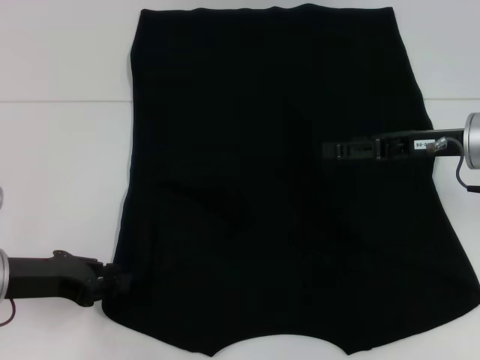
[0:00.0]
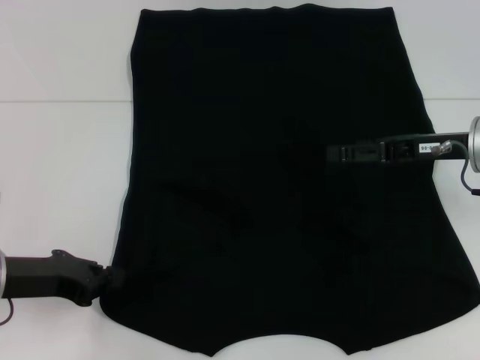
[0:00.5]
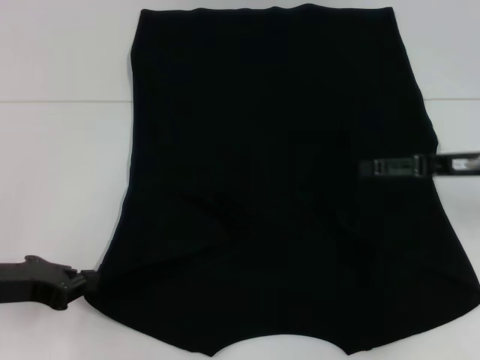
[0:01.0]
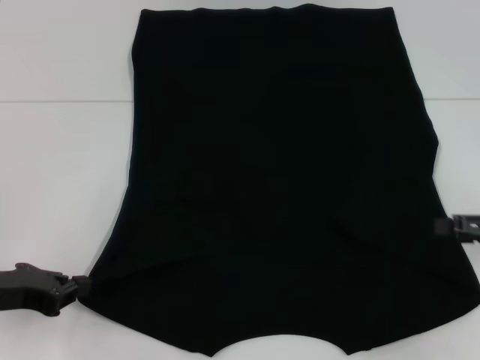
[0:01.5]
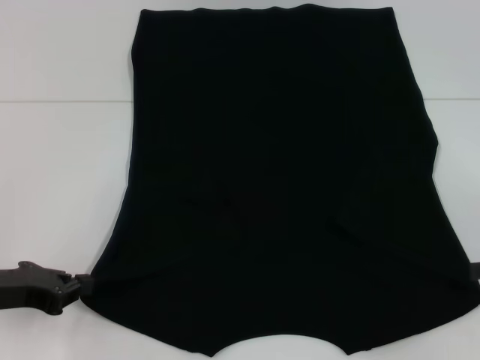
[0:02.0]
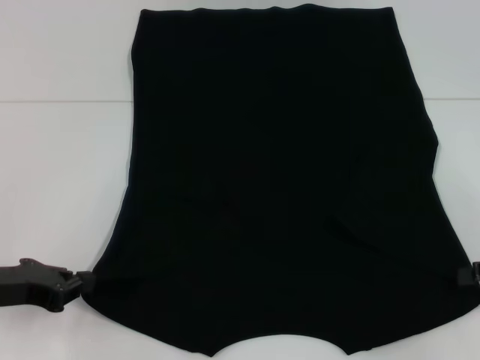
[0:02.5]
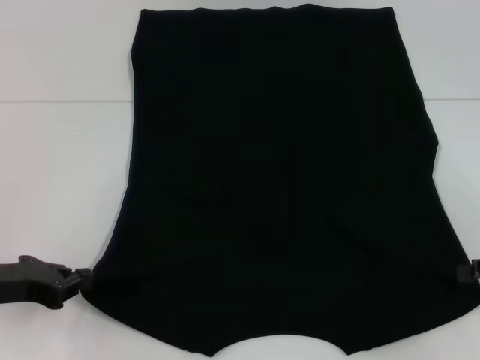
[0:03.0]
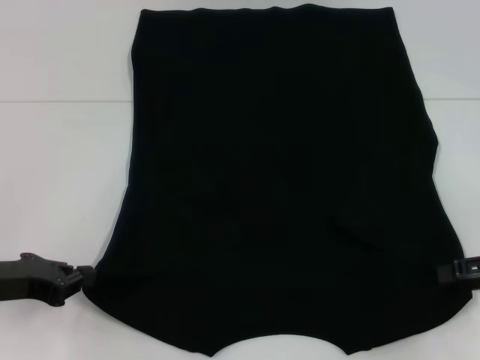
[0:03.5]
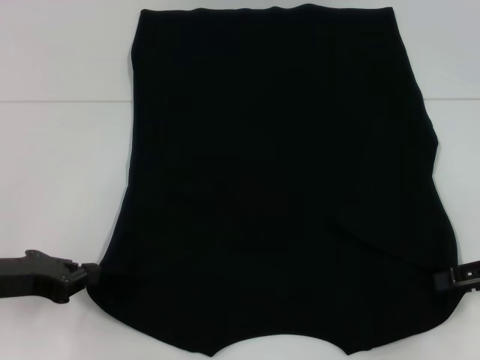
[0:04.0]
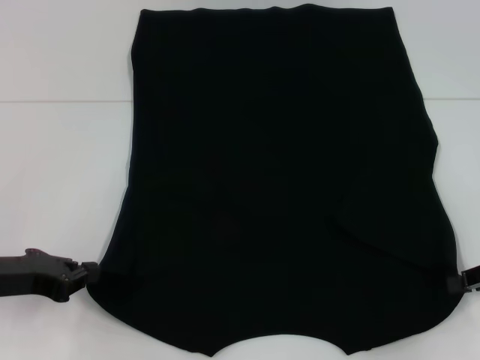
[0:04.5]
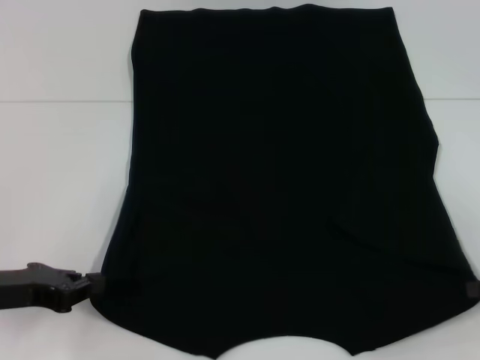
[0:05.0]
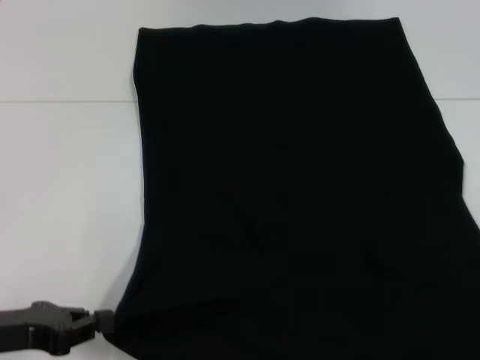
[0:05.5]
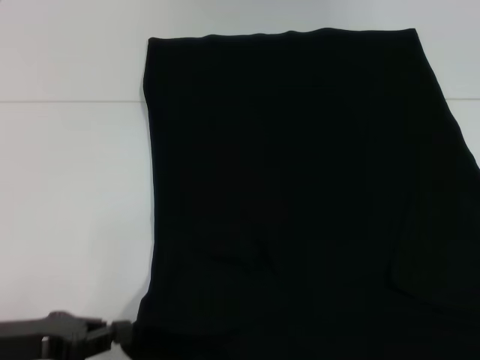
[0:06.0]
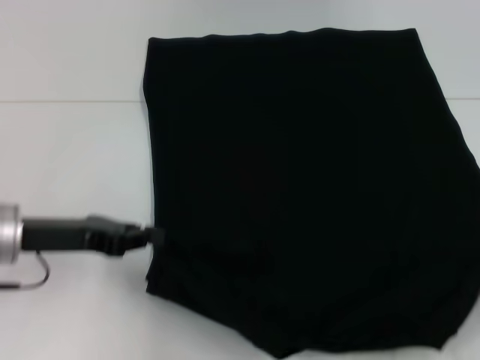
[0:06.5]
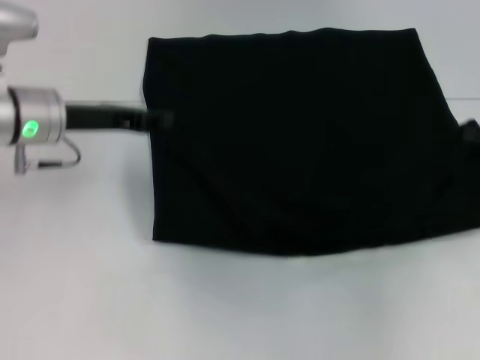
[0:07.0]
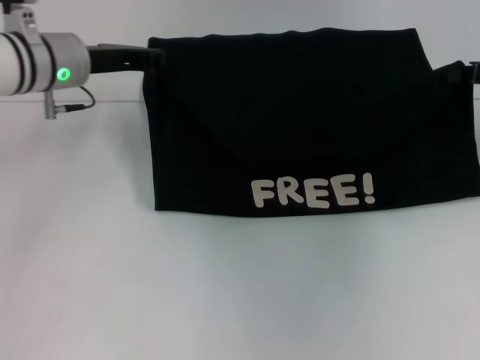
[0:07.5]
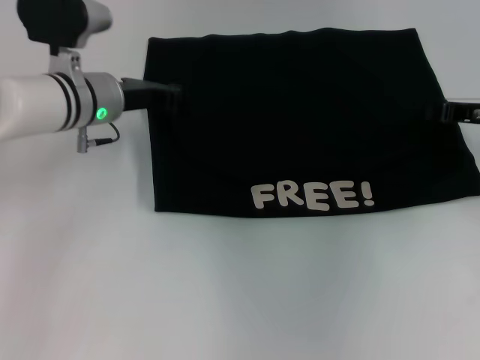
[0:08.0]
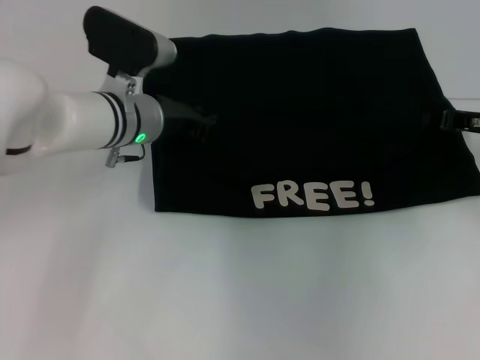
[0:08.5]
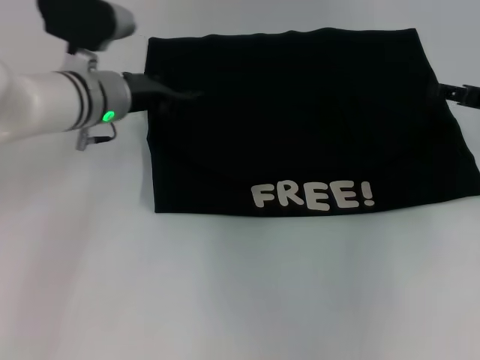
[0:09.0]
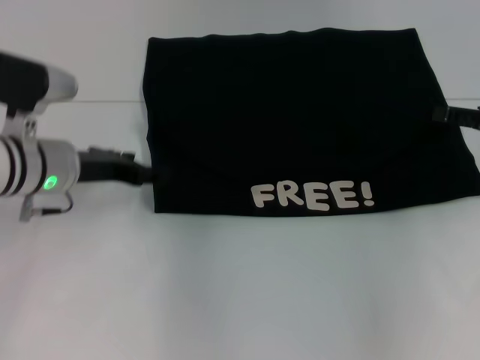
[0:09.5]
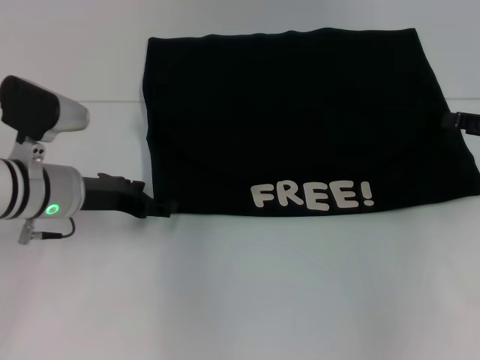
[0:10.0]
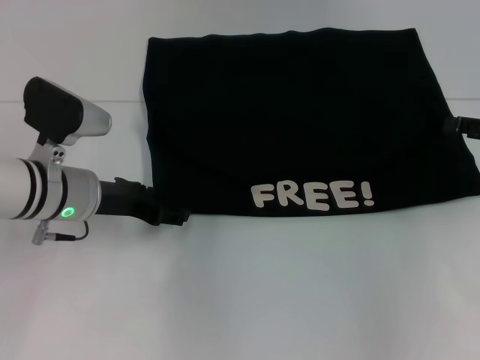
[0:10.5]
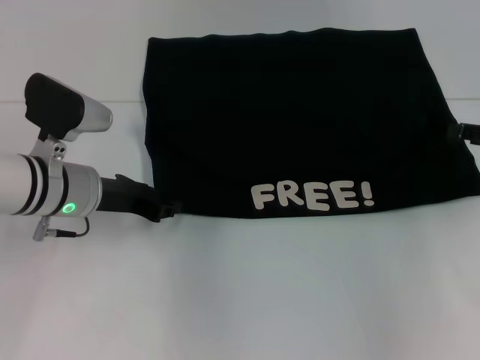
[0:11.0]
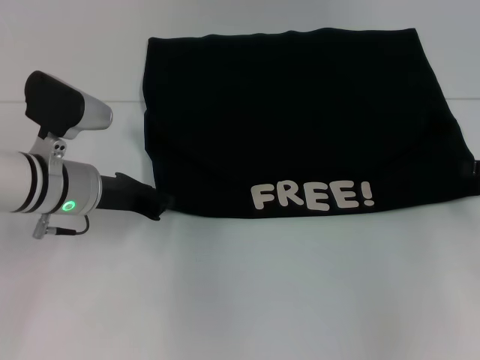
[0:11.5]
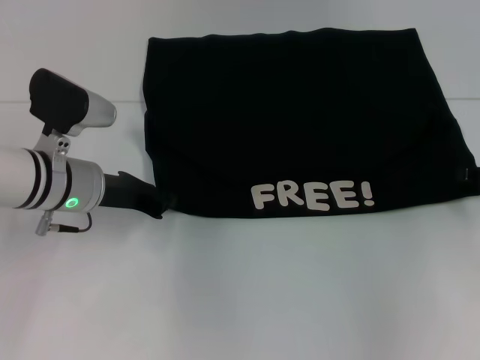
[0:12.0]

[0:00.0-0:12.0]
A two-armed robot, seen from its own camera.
Step, 1.5 to 4.5 s: Grab the bottom right corner with your right hand.
Step, 5.0 to 8.5 s: Fold the clothes with your left hand.
Step, 5.0 to 8.5 s: Fold the clothes with your right hand.
0.0 to 2.0 s: The left gripper closes its fingers. The right gripper heads to the right and backward, covering about 20 cm.
2.0 to 4.0 s: The grippers move only a little.
4.0 to 6.0 s: The right gripper goes roughly 15 cm backward and to the right, and closes its fingers. The left gripper travels backward by roughly 5 cm.
6.0 to 8.0 s: The right gripper moves forward and to the left, about 30 cm. Meanwhile the left gripper shifts about 25 cm forward and to the right.
8.0 to 10.0 s: The right gripper shifts some 5 cm backward, and opens. The left gripper shifts roughly 10 cm backward, and opens its fingers.
10.0 to 12.0 s: The left gripper closes.

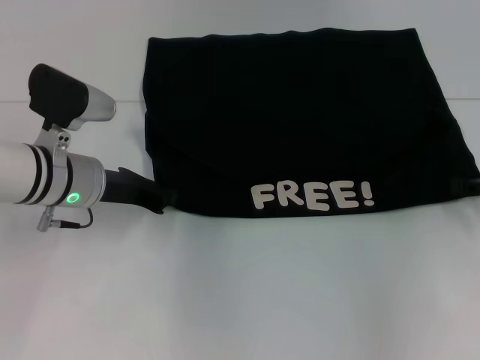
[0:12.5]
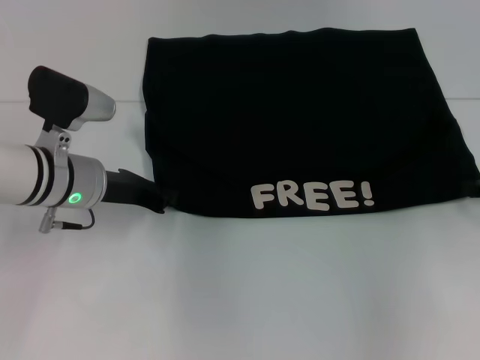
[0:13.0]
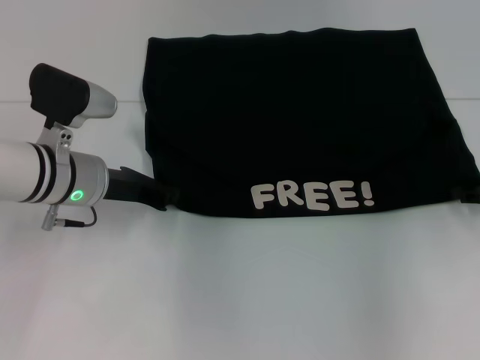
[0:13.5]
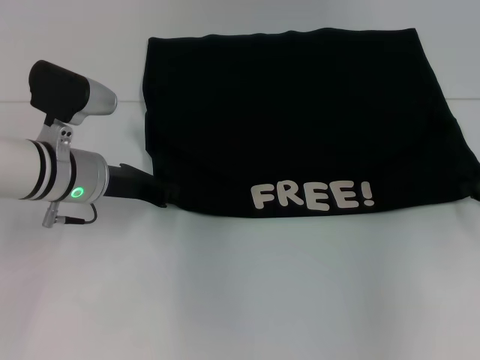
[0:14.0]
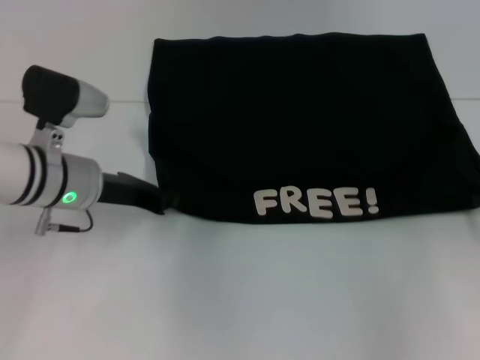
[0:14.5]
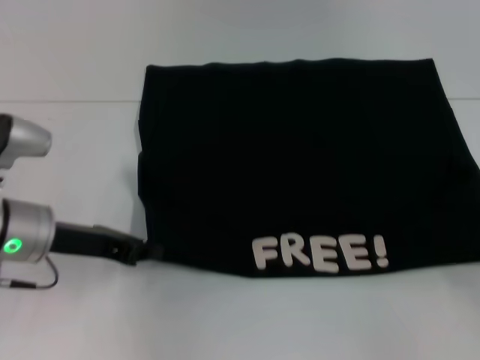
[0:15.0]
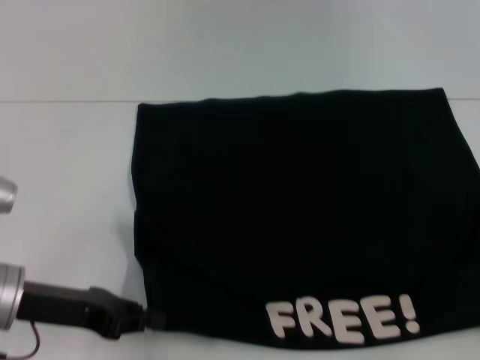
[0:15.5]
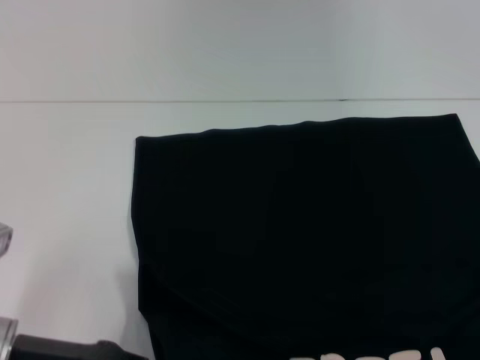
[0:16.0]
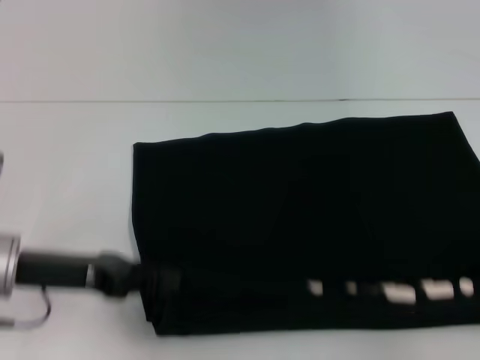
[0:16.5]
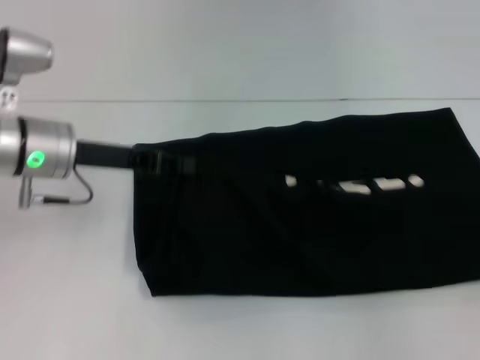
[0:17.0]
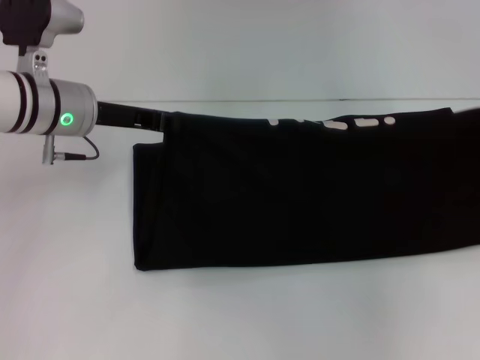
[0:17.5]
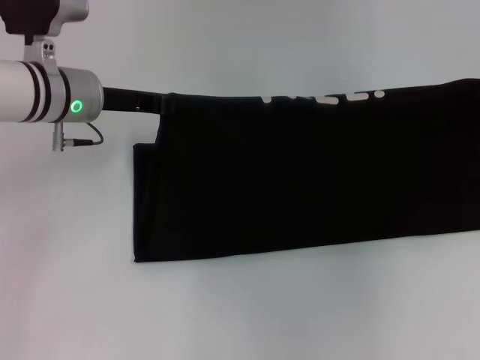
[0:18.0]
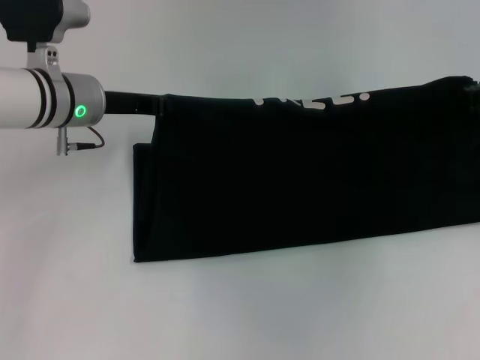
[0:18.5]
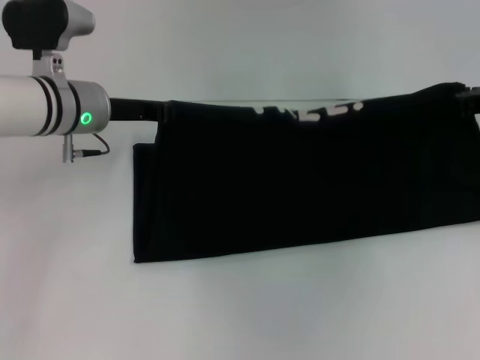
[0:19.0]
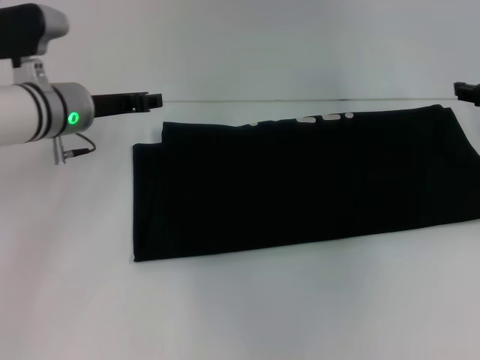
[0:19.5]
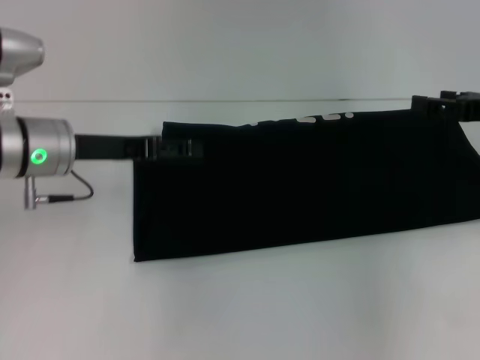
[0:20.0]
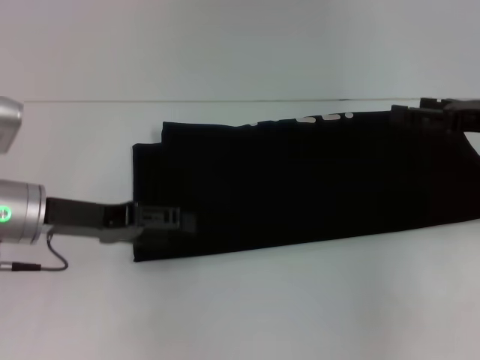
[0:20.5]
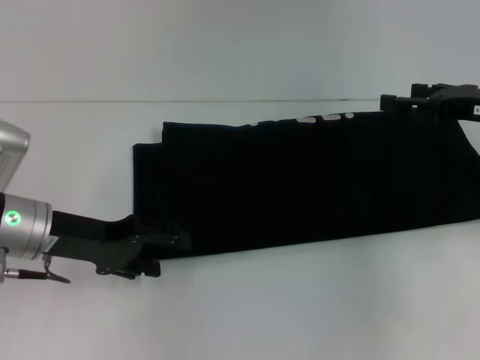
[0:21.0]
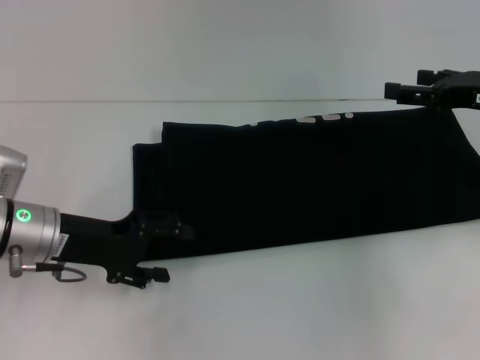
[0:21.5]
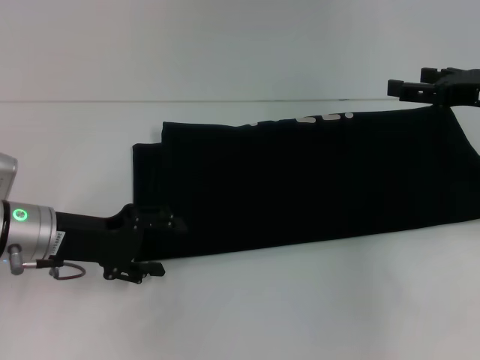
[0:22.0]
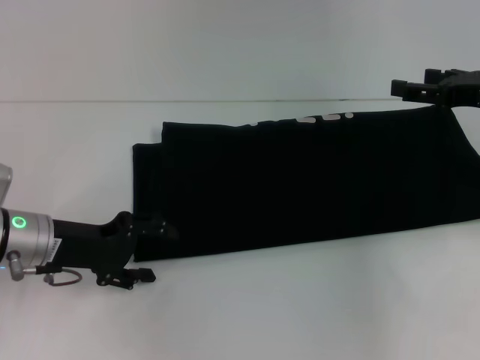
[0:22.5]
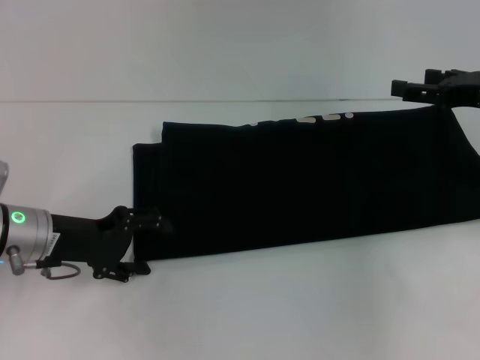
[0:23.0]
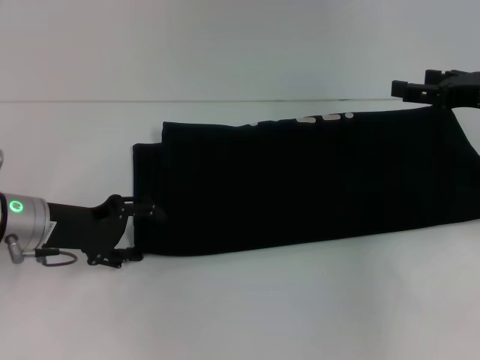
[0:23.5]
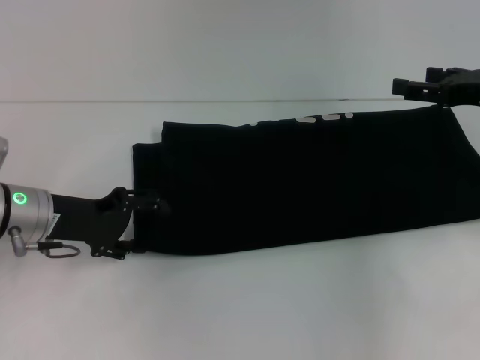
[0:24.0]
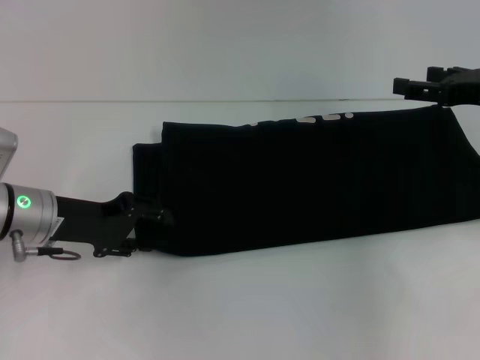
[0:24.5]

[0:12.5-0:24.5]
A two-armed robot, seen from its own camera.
Step, 12.5 to 16.0 s: Pull the clothes with your left hand.
Step, 12.5 to 16.0 s: Pull the clothes with your right hand.
Step, 16.5 to 19.5 s: Fold the clothes with your right hand.
12.5 to 14.5 s: The right gripper closes.
14.5 to 16.5 s: The left gripper goes roughly 10 cm backward and to the left. The right gripper travels backward and to the right by some 20 cm.
16.5 to 18.5 s: The left gripper travels forward by some 15 cm, while the right gripper travels forward and to the left by approximately 30 cm.
18.5 to 20.5 s: The left gripper heads backward, covering some 10 cm, and opens up. Meanwhile the right gripper travels backward by roughly 5 cm, and opens up.
22.5 to 24.5 s: The grippers stay close to where they were, moving slightly.

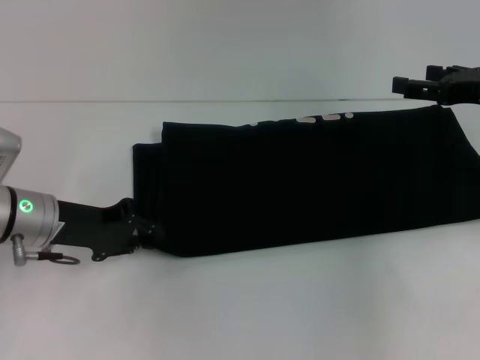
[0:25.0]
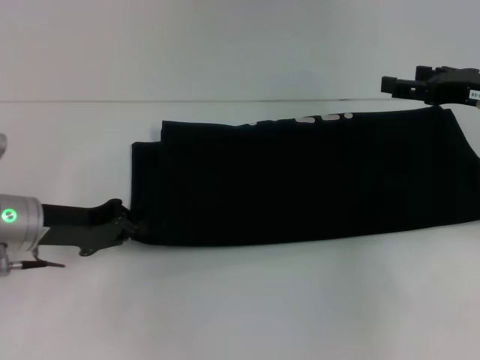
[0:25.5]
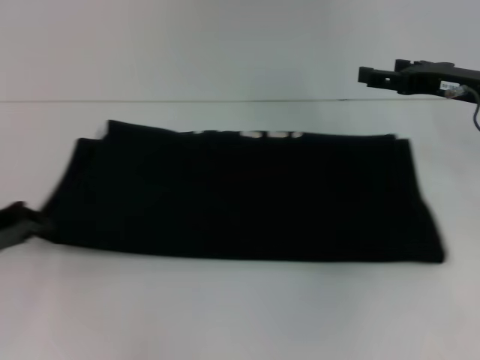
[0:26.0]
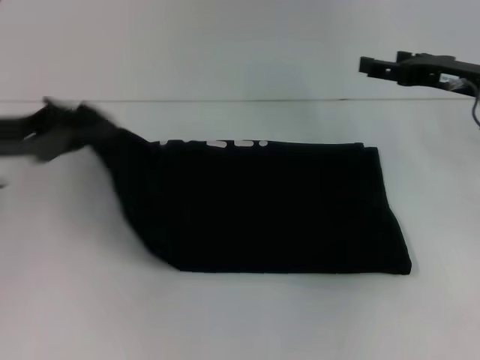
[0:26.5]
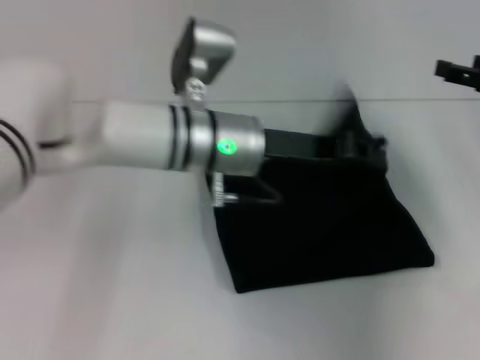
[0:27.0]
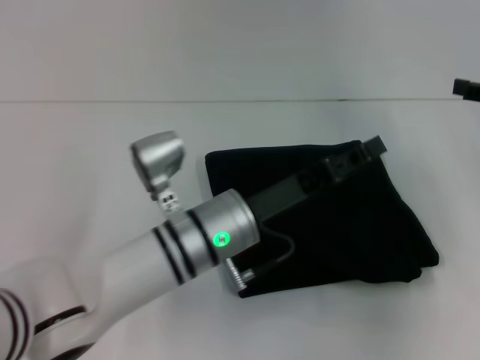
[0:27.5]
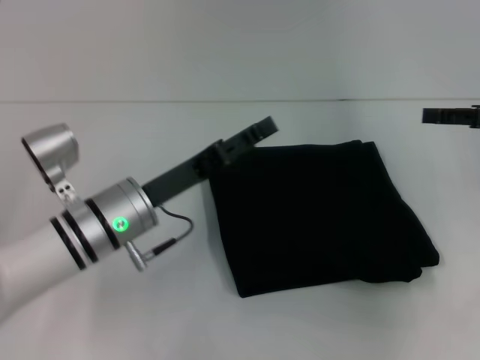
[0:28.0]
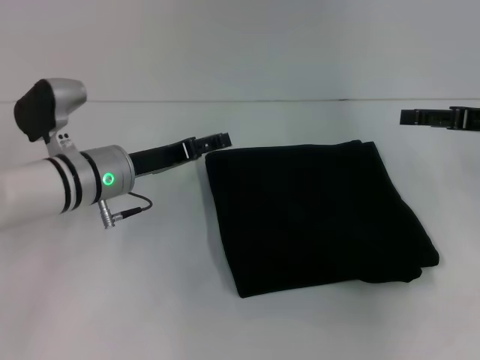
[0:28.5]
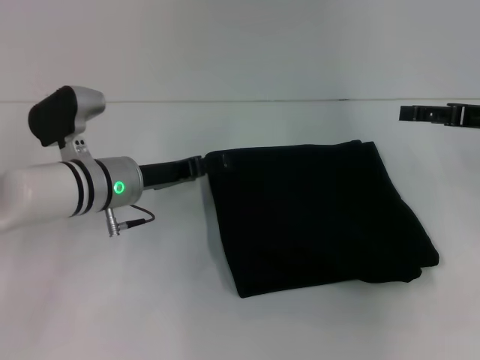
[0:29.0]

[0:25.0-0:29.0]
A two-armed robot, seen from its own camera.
Step, 25.0 to 27.0 s: Fold the clothes with your left hand.
25.0 to 27.0 s: The left gripper goes some 20 cm to the right.
27.0 to 29.0 s: The left gripper travels to the left and downward by approximately 15 cm, and opens its fingers.
